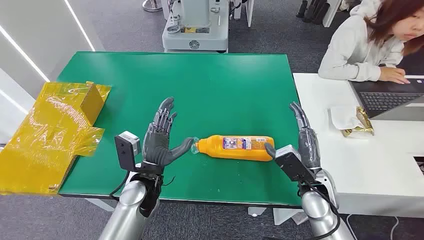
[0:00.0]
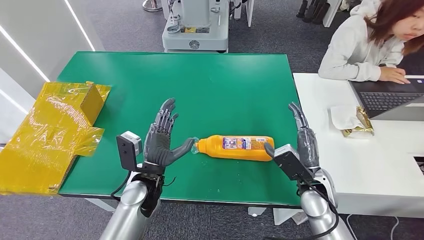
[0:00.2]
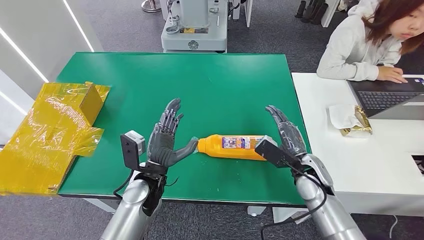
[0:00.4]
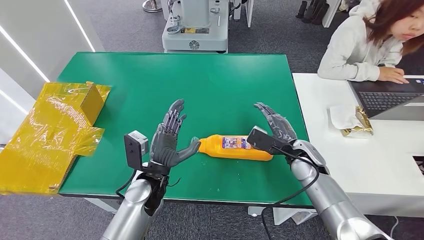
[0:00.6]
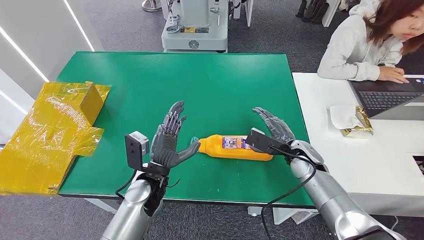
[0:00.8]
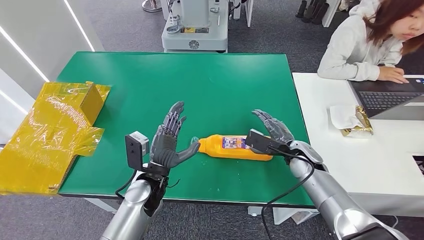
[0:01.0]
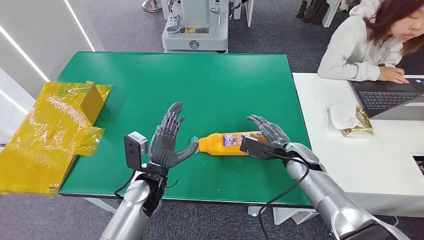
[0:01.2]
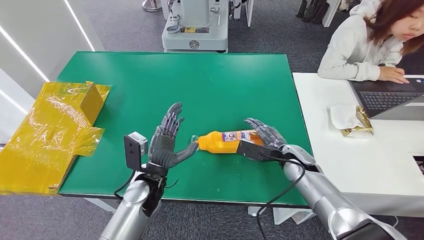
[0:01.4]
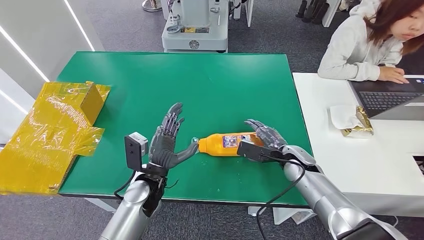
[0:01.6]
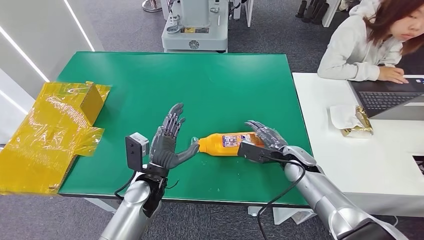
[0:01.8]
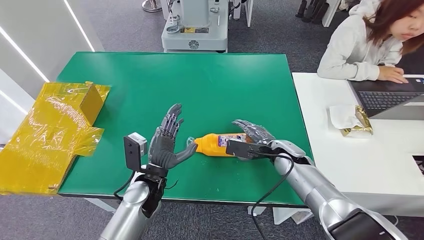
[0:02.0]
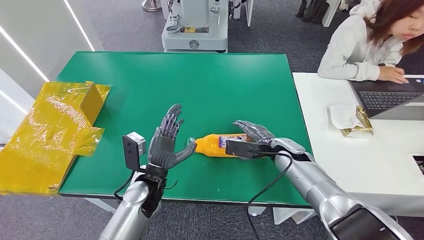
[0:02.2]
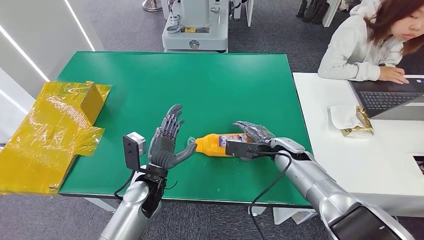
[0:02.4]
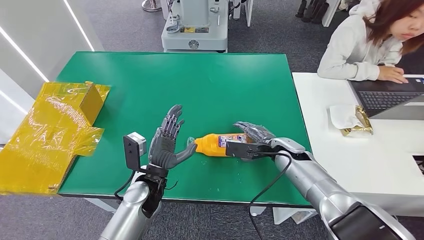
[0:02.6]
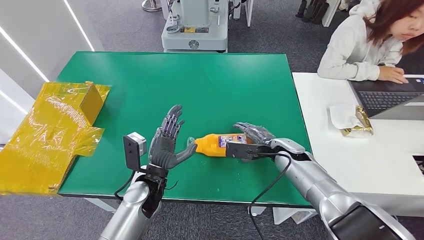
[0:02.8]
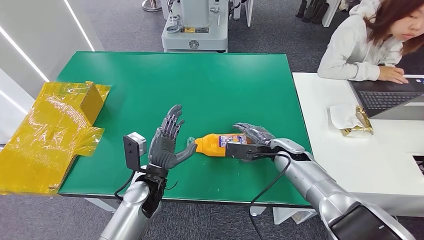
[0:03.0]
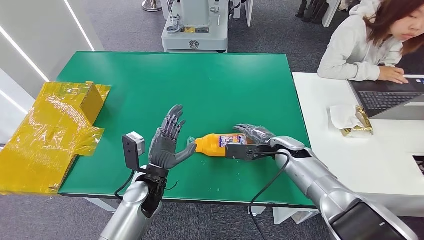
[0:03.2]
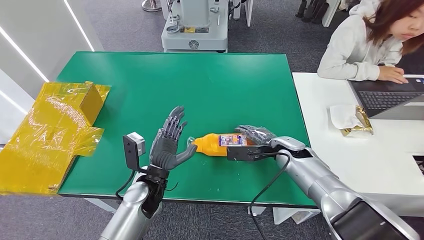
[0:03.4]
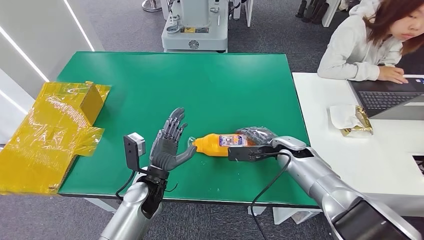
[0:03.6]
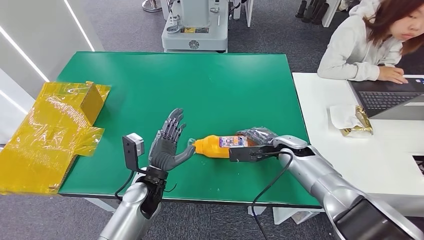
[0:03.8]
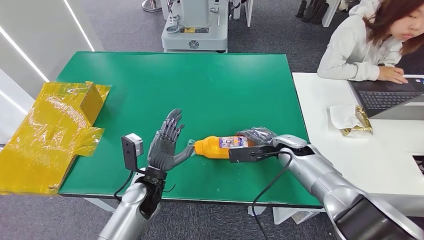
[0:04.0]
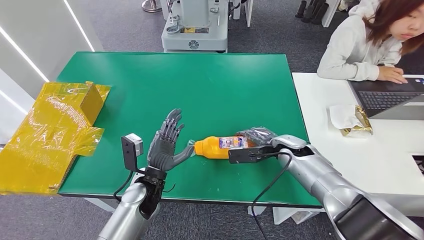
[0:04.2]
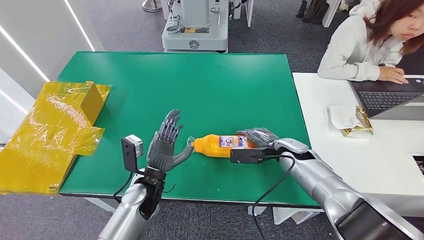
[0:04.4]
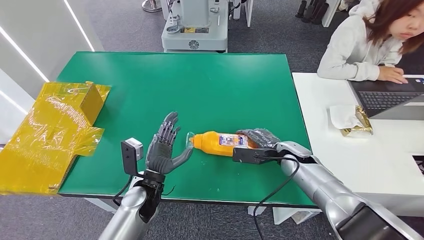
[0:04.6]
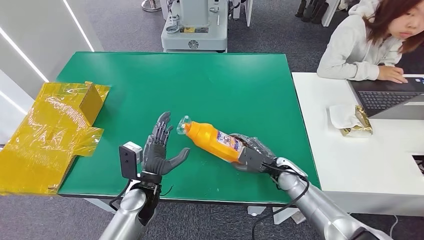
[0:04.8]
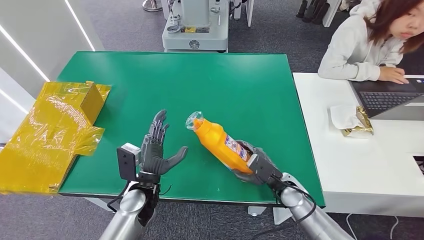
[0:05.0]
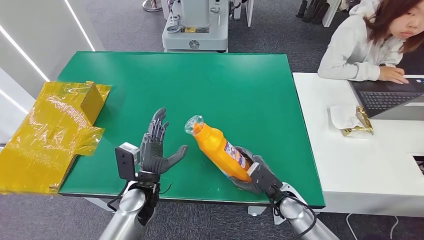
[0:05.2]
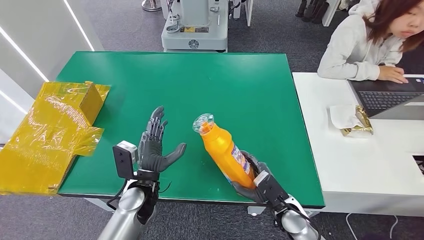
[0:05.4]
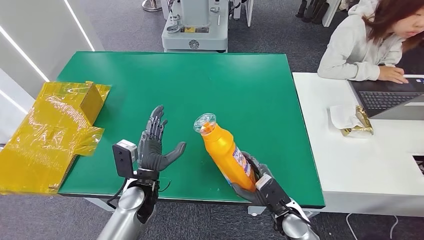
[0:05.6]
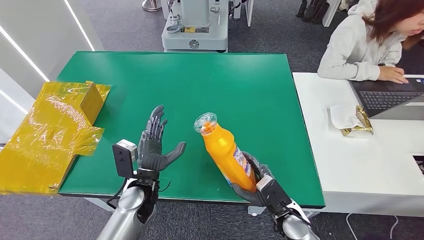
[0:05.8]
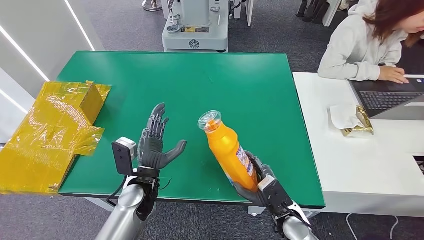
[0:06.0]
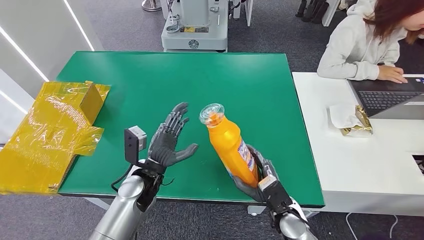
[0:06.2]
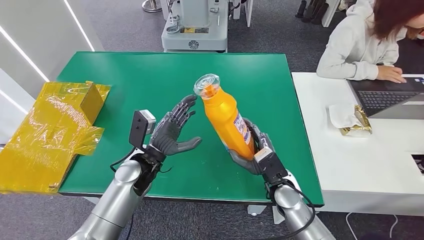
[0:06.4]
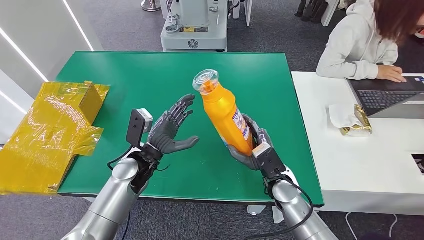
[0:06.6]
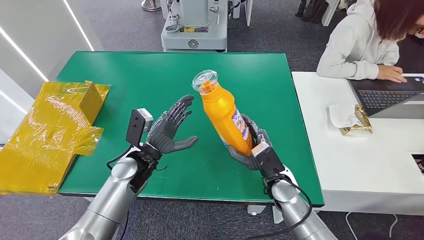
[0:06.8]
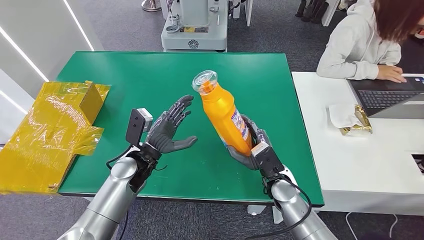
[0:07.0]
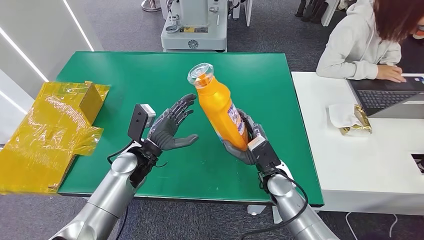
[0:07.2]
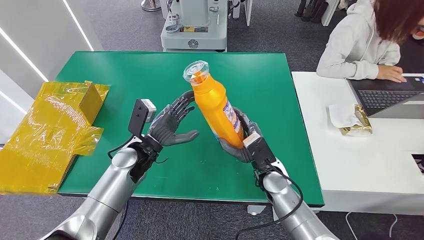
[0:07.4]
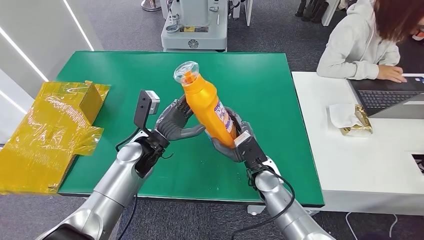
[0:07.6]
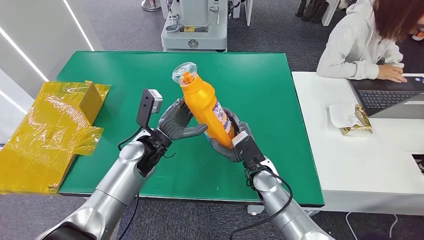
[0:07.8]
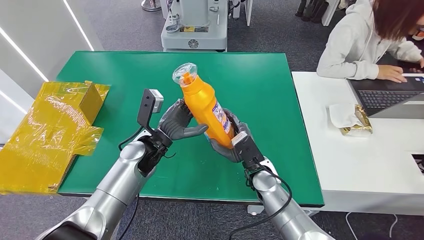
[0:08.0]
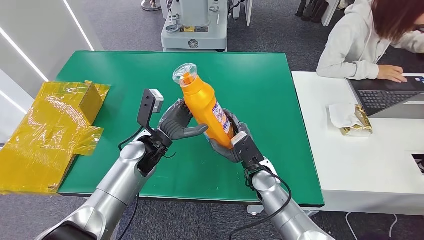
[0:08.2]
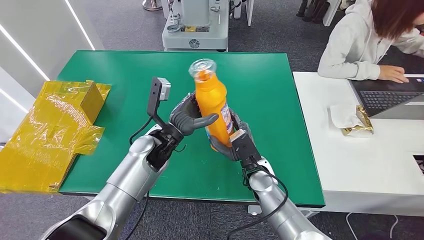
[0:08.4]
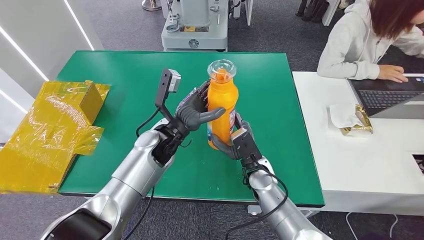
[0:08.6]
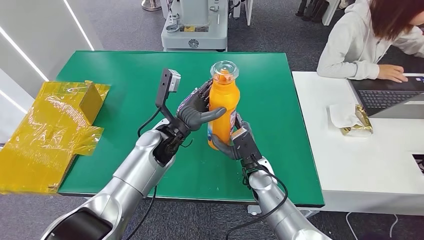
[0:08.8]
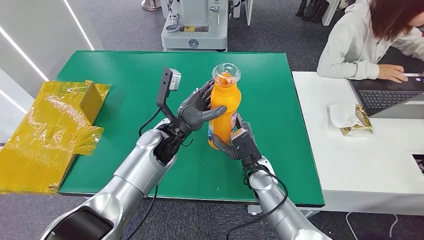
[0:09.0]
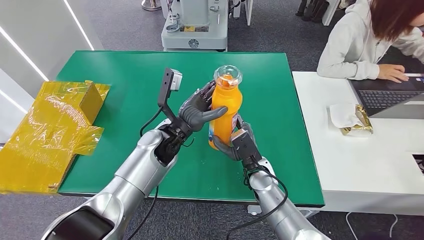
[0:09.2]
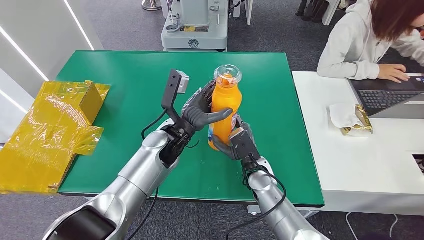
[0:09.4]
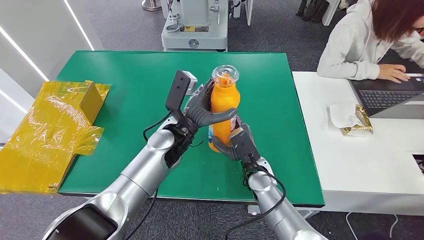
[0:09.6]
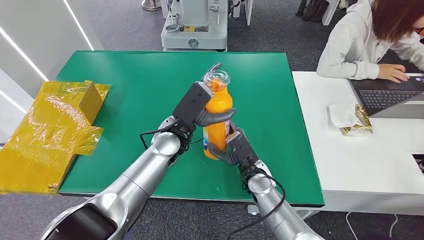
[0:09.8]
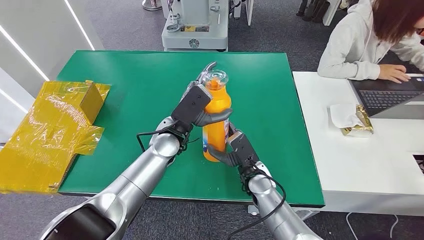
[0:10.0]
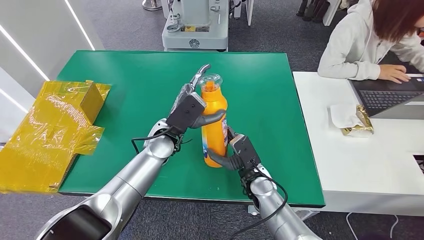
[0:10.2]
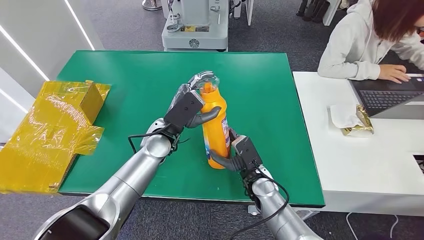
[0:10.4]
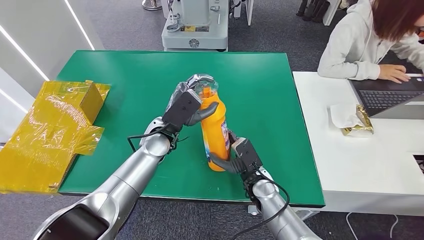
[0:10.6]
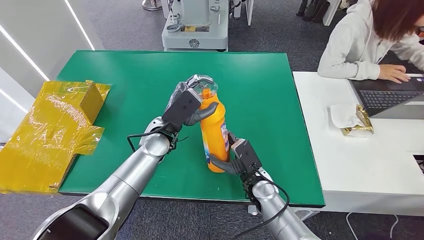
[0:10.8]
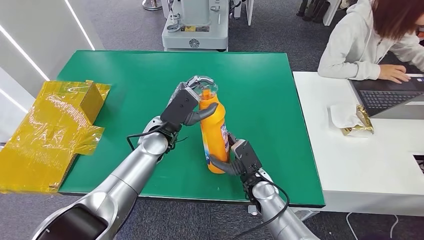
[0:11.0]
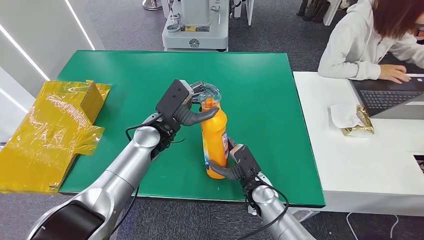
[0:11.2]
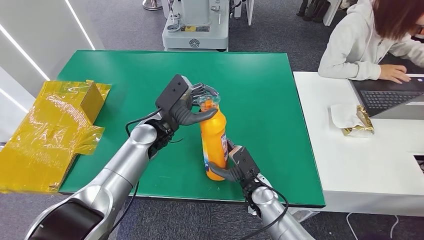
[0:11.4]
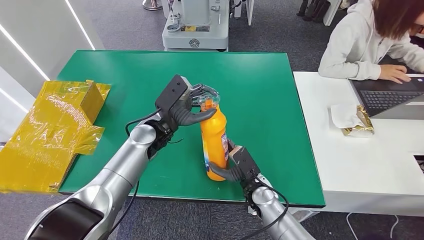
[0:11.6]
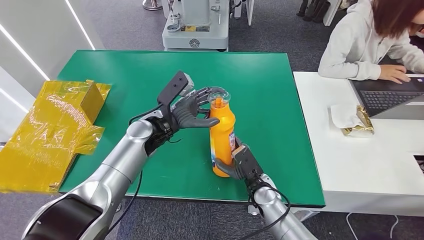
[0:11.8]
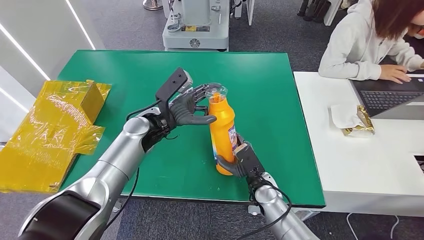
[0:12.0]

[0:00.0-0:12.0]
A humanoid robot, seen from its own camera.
Step, 0:00.0 to 0:05.4: Pick up the bottle from the table.
0:01.6 to 0:03.0: The hands make only small movements.
0:03.0 to 0:04.4: The hands make only small movements.
0:04.4 to 0:06.0: The right hand heads backward and downward, covering roughly 20 cm.
0:07.6 to 0:09.0: The left hand goes about 5 cm to the right.

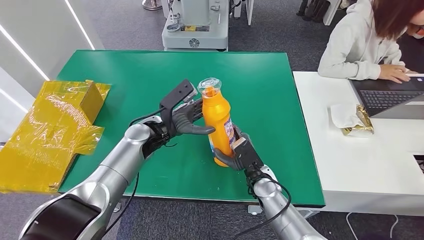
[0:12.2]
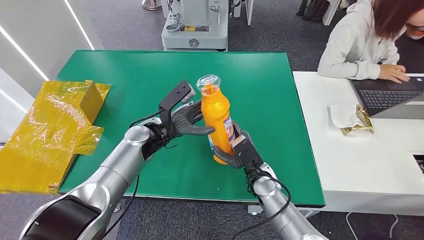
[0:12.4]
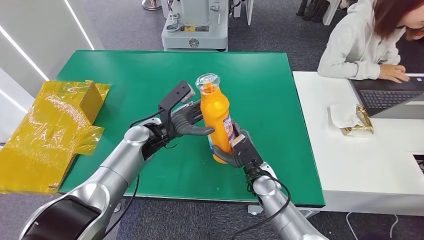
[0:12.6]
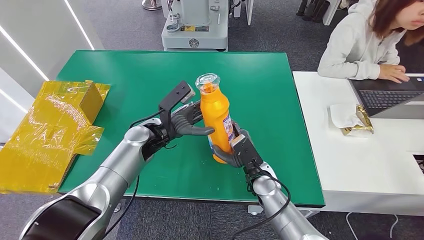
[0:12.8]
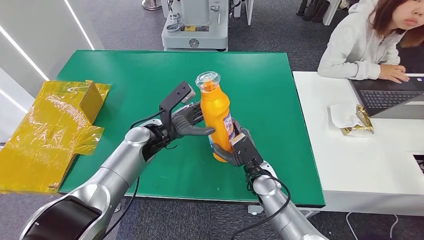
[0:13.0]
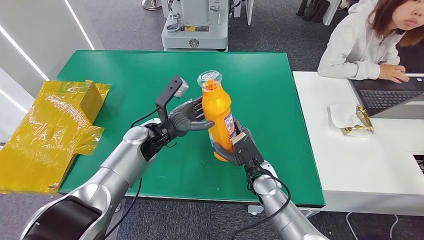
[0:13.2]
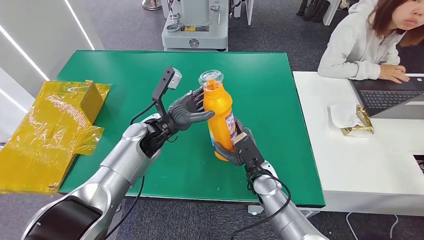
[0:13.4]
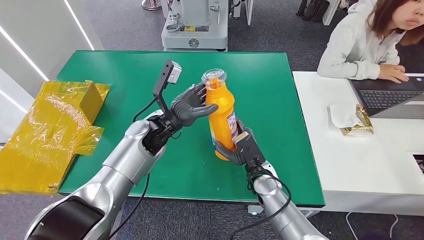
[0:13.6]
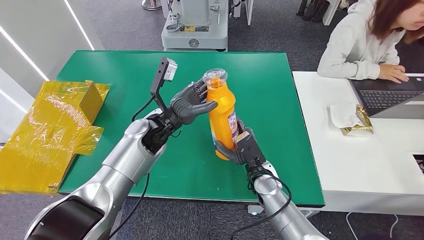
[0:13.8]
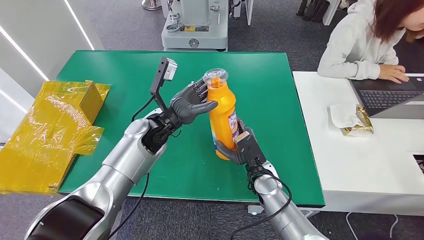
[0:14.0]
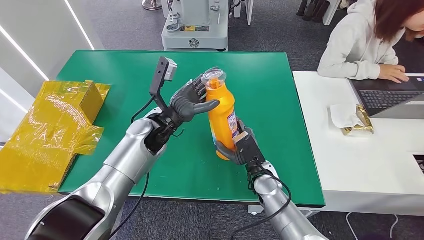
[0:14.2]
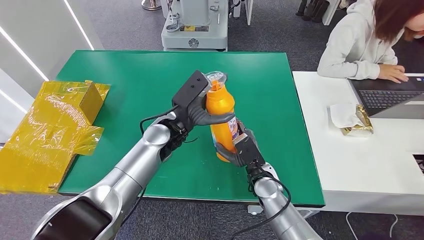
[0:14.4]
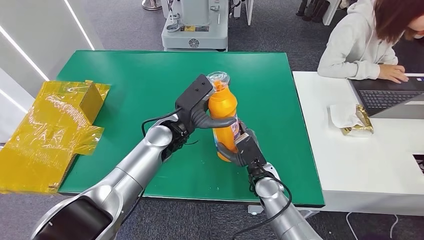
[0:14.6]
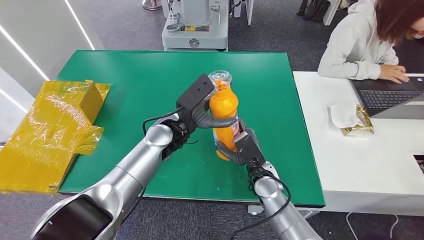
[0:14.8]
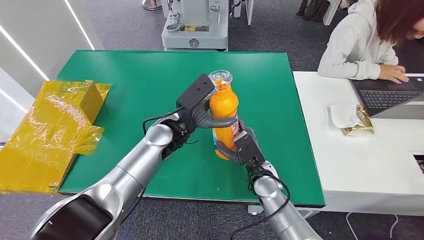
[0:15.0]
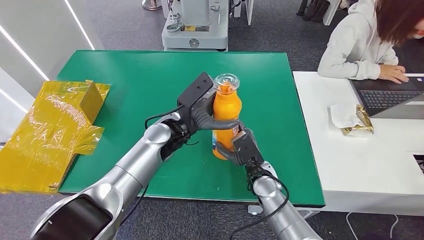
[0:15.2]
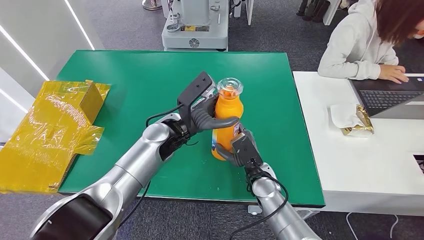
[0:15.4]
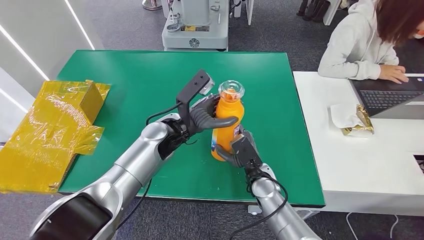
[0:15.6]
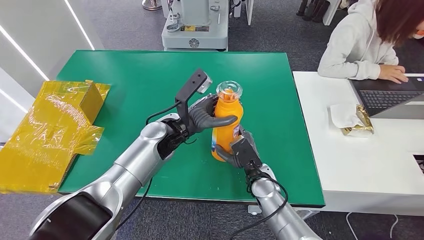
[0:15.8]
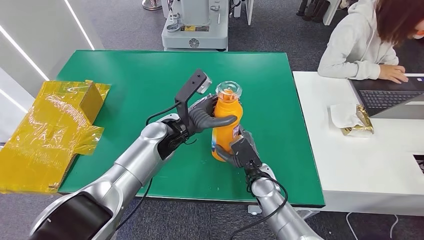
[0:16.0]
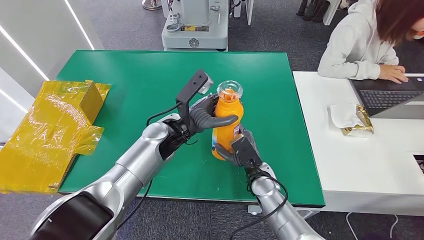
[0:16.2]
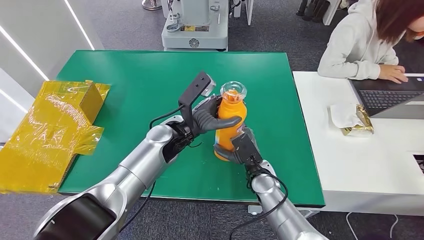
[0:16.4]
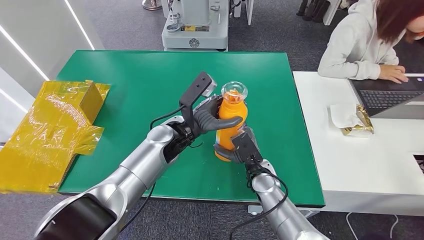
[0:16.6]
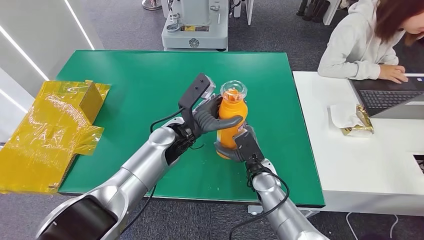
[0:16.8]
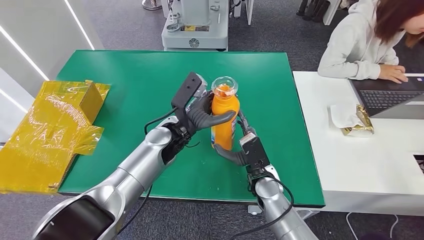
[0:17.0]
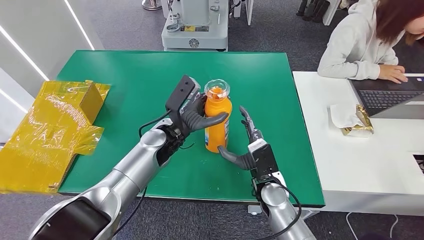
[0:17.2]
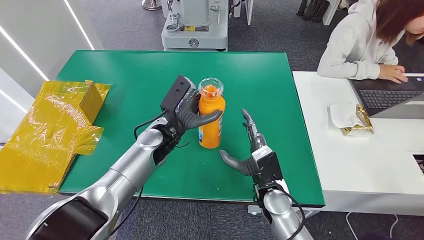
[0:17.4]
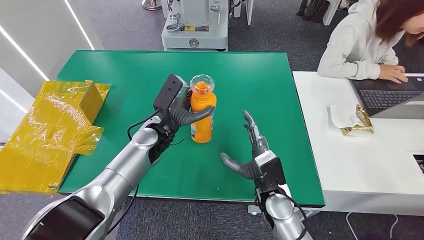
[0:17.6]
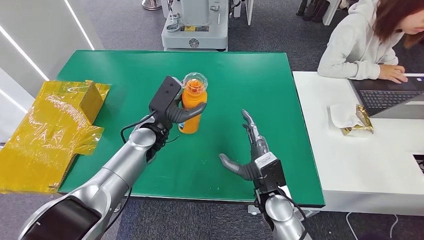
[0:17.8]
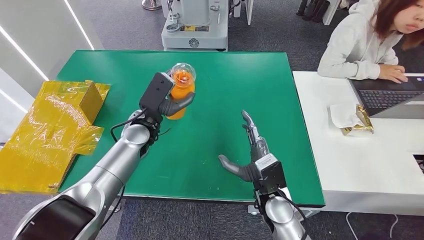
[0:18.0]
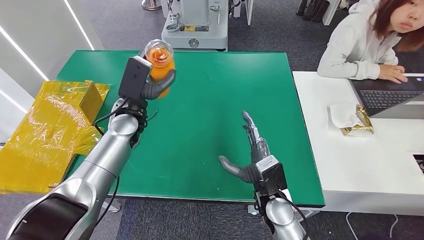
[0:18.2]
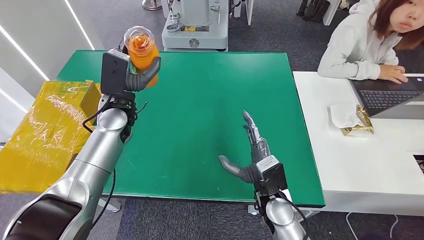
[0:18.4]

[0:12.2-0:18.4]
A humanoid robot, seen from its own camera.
0:15.4 to 0:16.8: There are only small adjustments of the hands.
